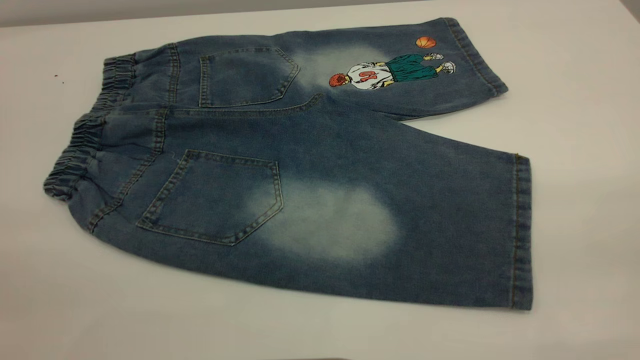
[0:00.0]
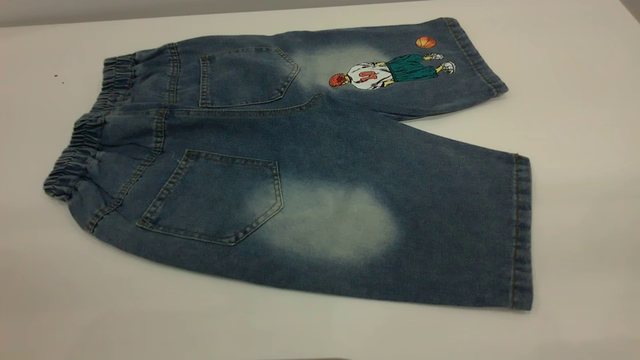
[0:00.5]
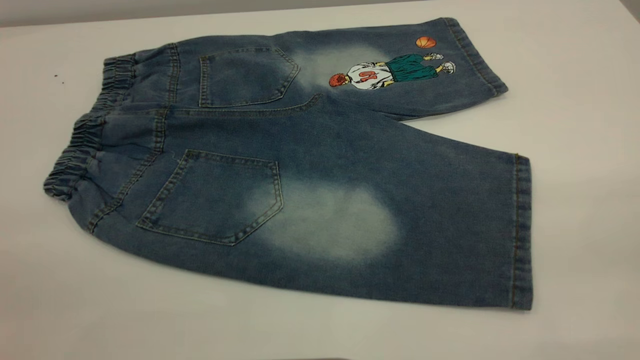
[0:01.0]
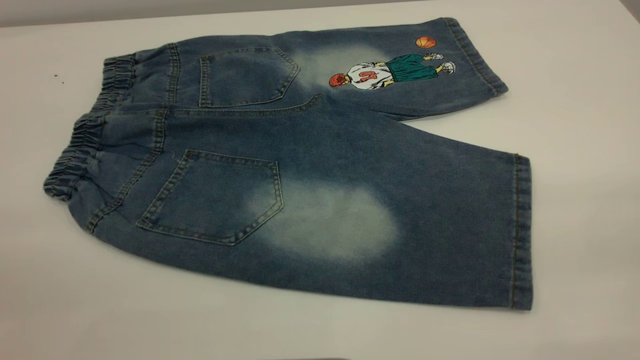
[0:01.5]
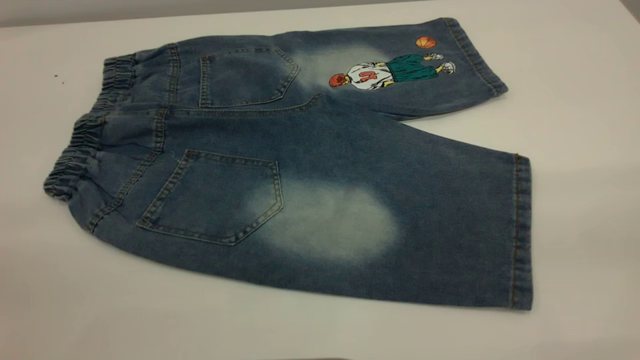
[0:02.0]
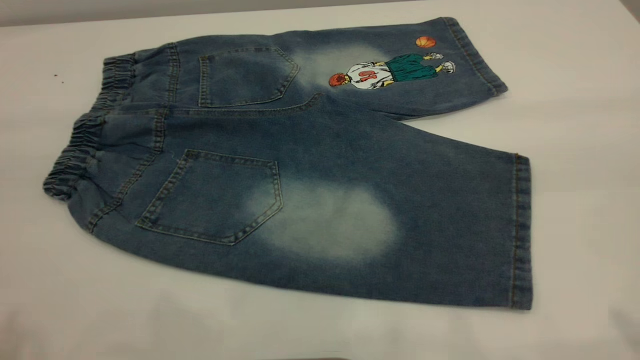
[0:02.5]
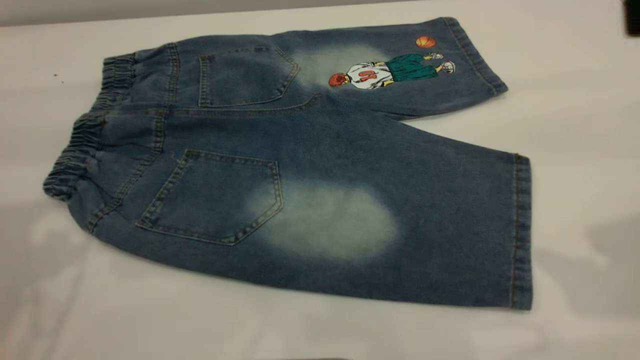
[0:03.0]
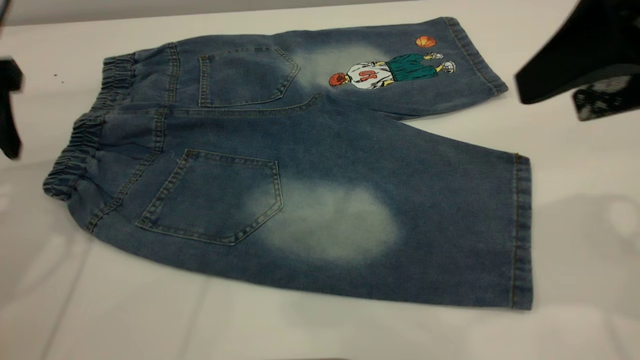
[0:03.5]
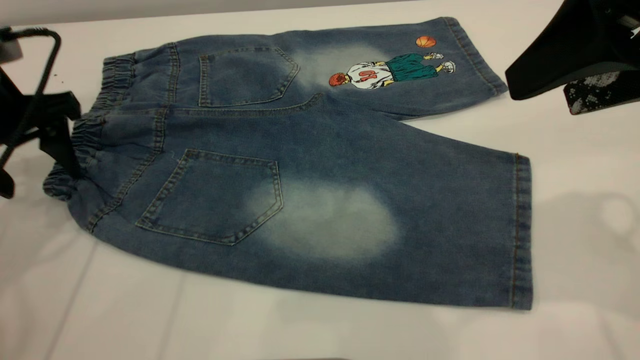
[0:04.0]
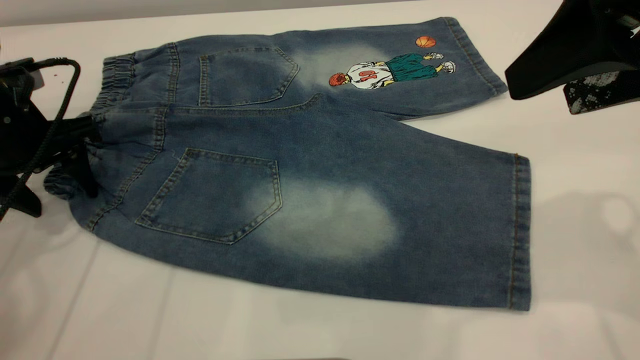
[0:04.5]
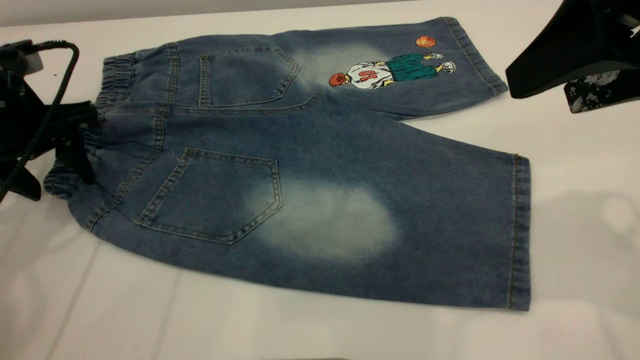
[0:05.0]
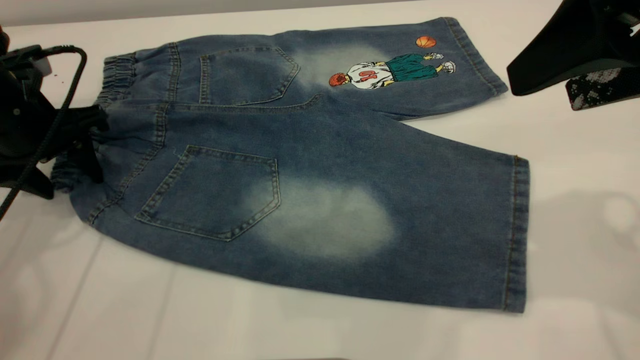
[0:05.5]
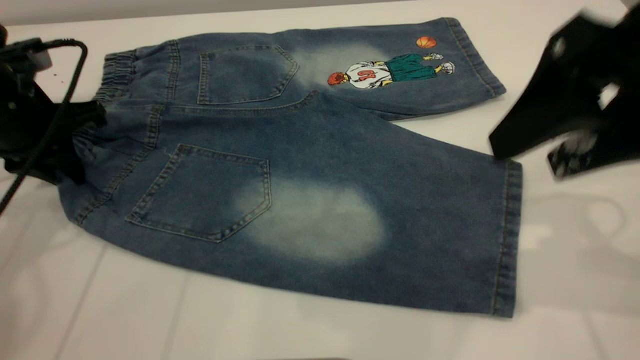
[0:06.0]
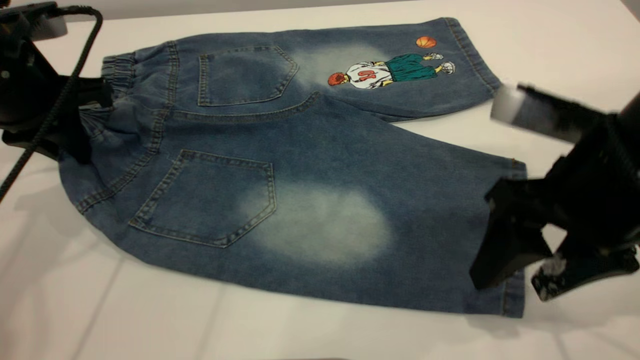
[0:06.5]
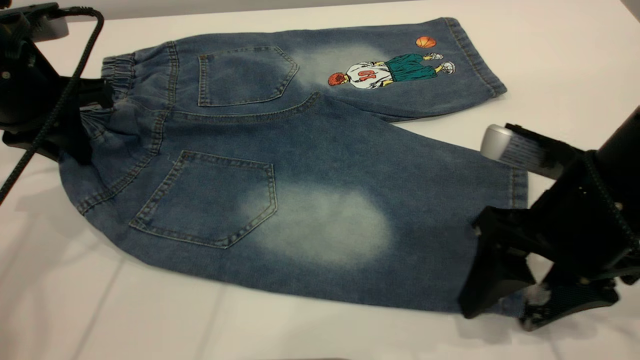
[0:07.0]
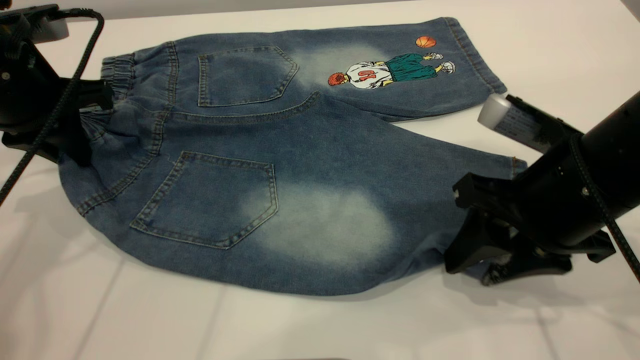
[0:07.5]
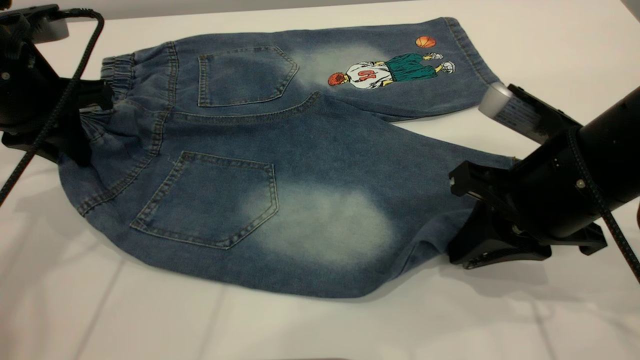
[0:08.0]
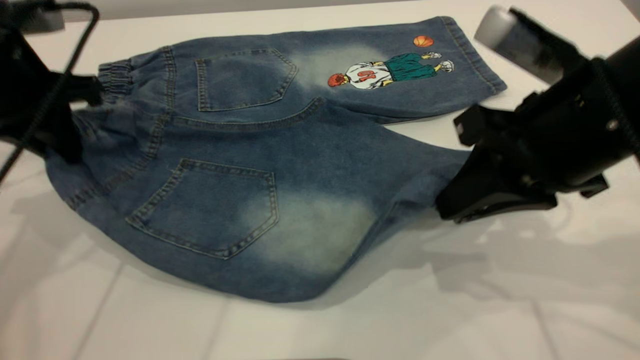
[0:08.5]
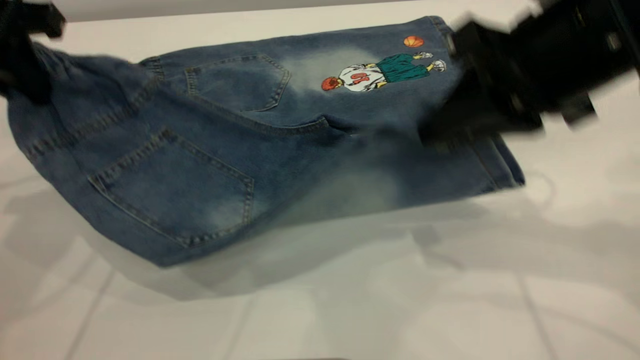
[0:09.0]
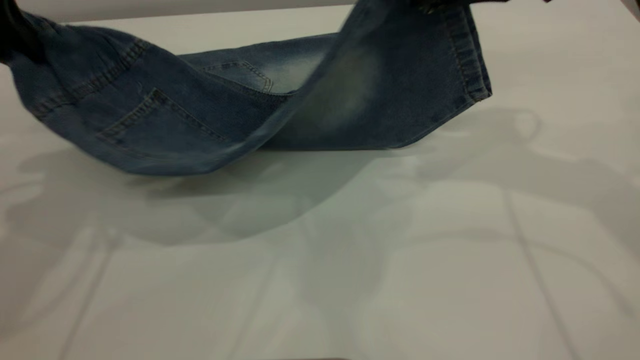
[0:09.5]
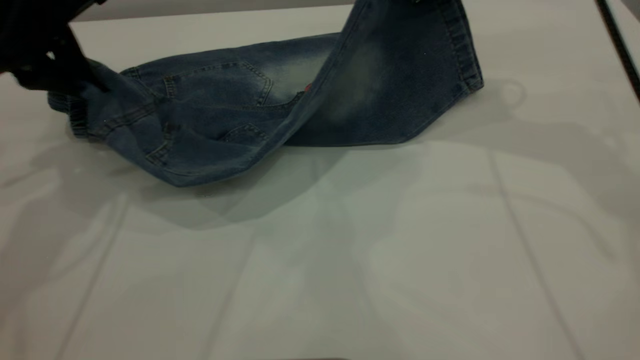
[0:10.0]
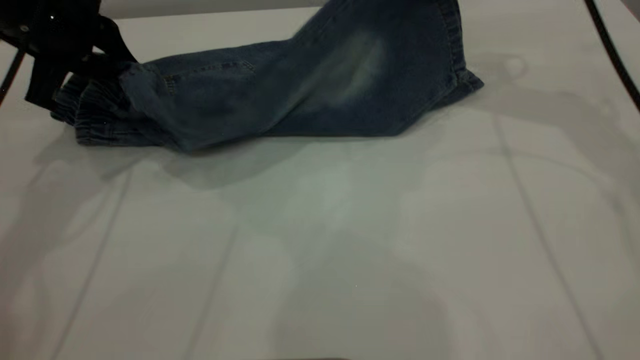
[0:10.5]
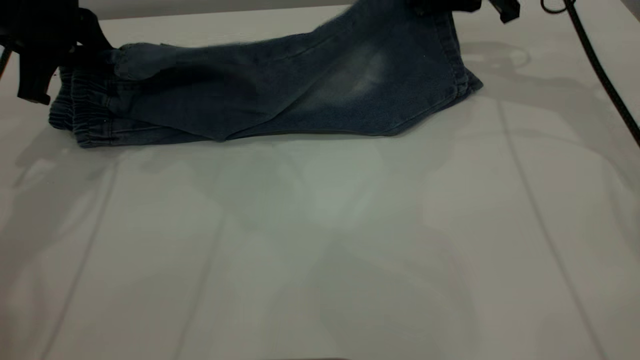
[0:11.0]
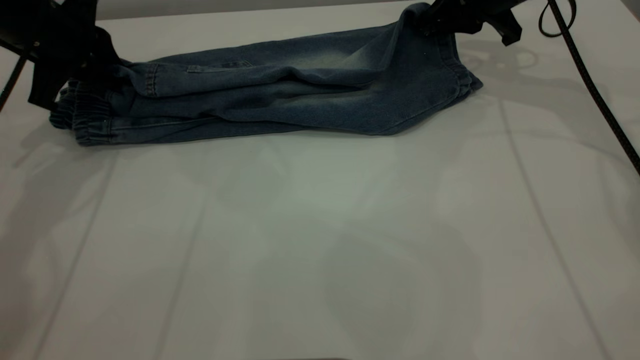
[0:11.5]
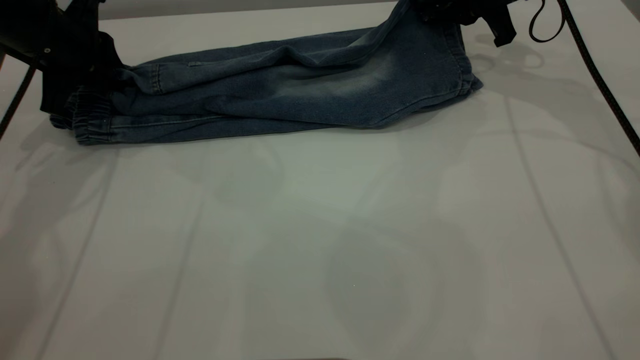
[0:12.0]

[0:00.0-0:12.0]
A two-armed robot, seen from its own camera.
0:02.0 to 0:04.0: The left gripper goes approximately 40 cm forward and downward; the right gripper shifts about 20 cm forward.
0:04.0 to 0:06.0: The left gripper closes up.
0:06.0 to 0:08.0: The right gripper goes roughly 10 cm downward, and closes up.
0:08.0 to 0:10.0: The right gripper shifts approximately 20 cm forward and upward.
0:10.0 to 0:12.0: The grippers both shift forward and downward by some 10 cm.

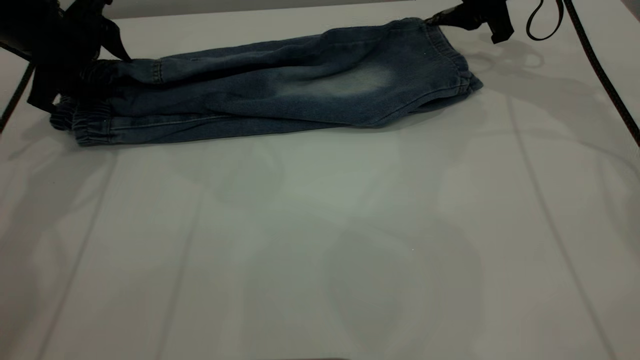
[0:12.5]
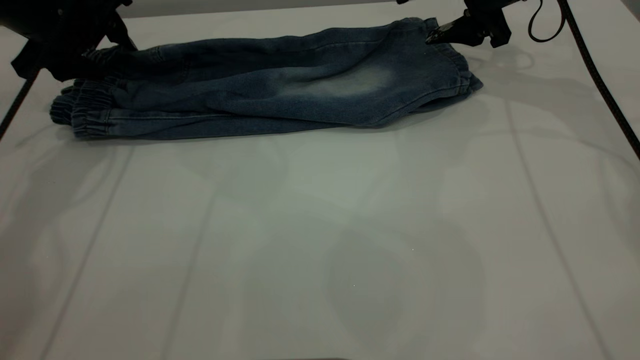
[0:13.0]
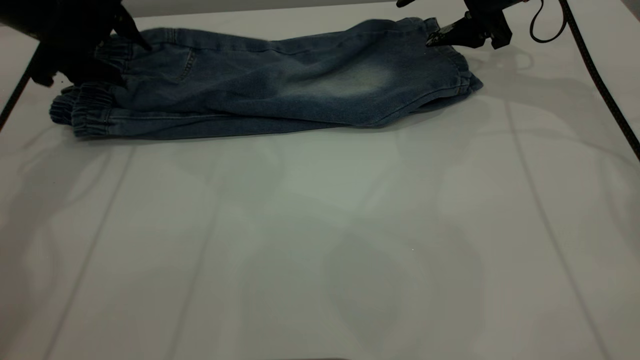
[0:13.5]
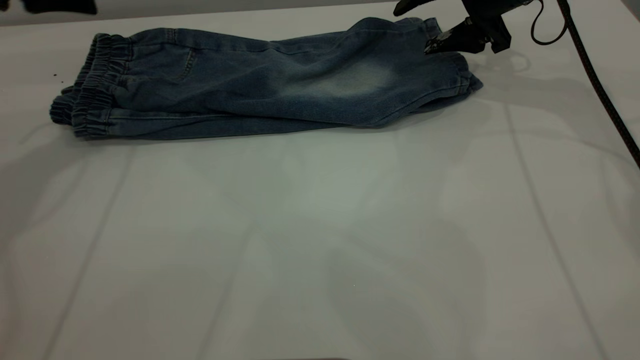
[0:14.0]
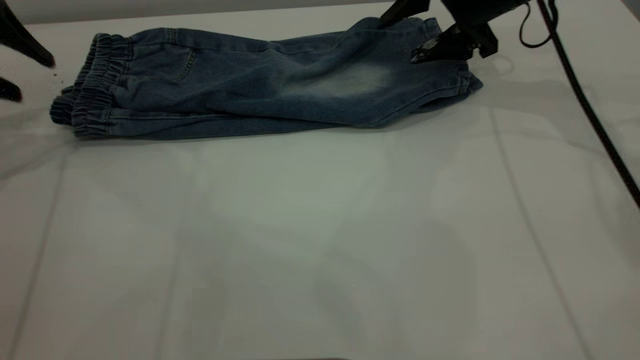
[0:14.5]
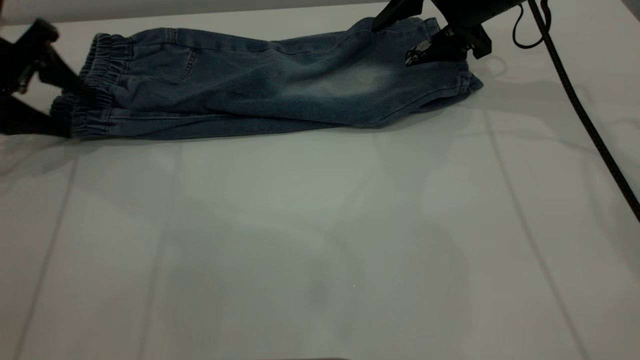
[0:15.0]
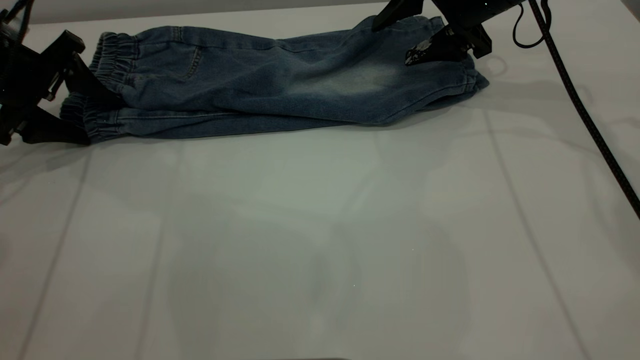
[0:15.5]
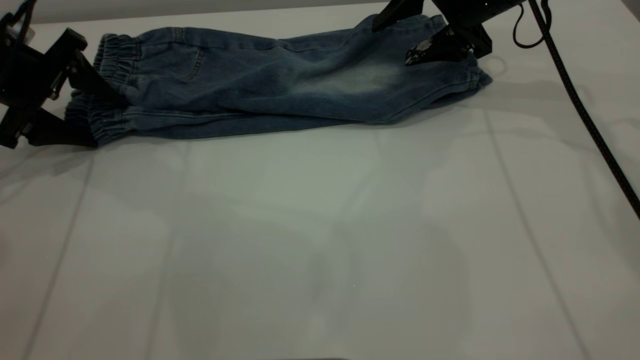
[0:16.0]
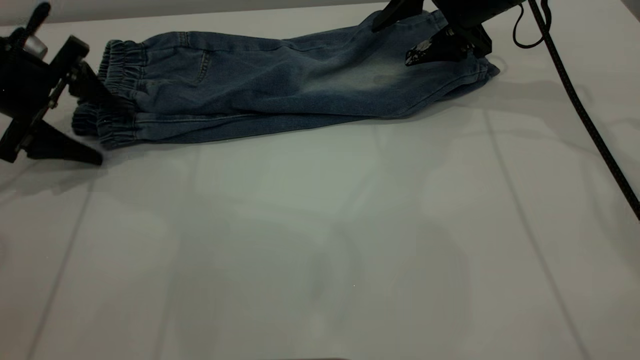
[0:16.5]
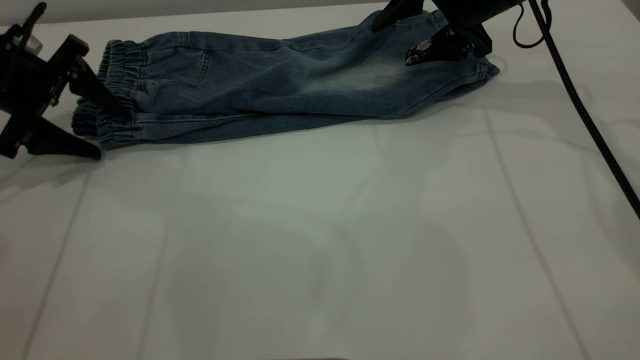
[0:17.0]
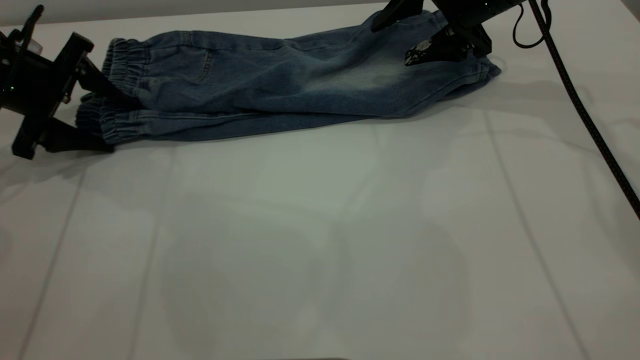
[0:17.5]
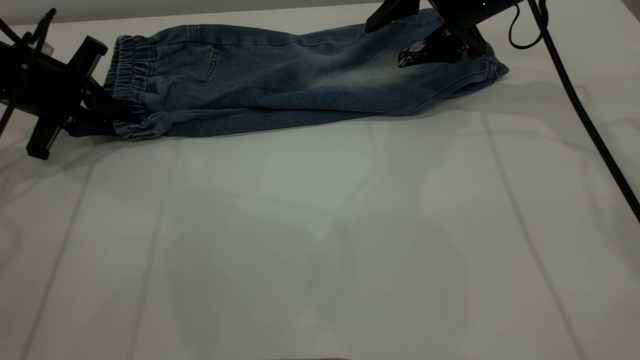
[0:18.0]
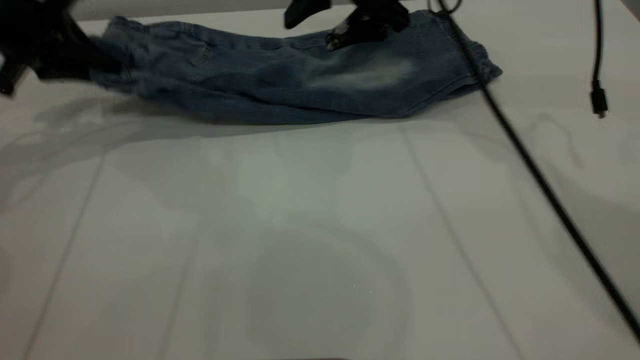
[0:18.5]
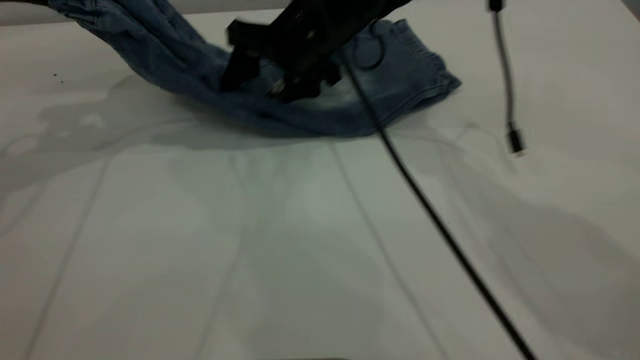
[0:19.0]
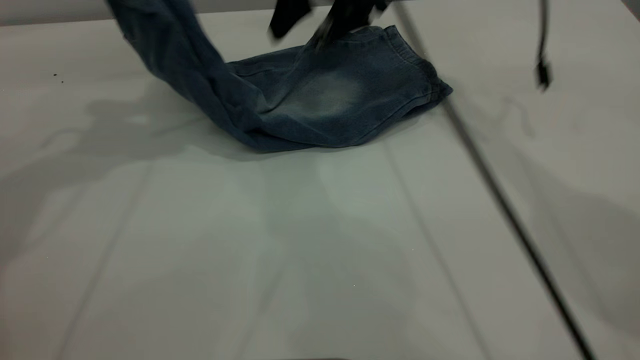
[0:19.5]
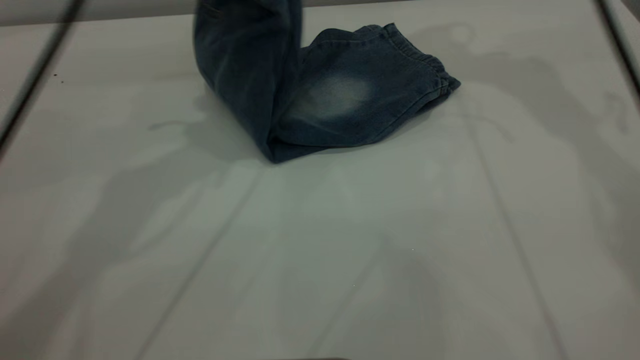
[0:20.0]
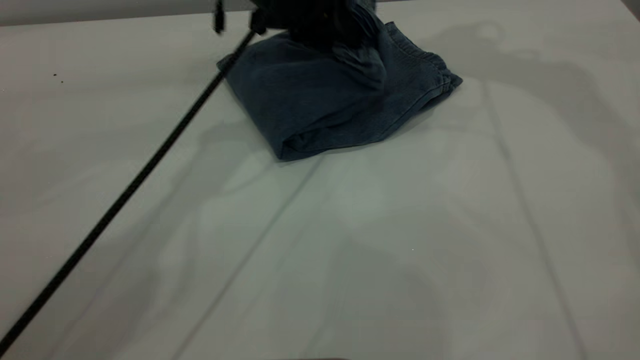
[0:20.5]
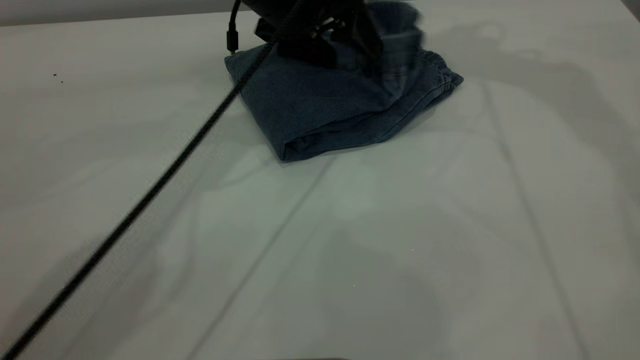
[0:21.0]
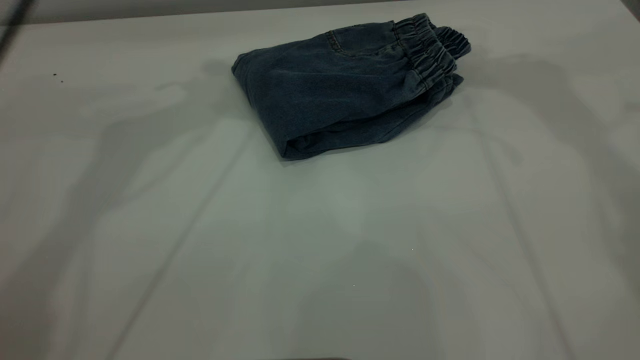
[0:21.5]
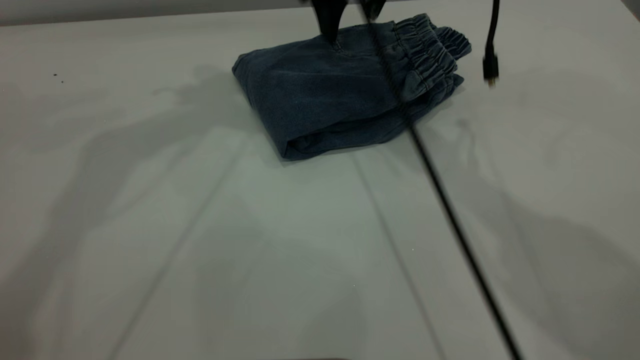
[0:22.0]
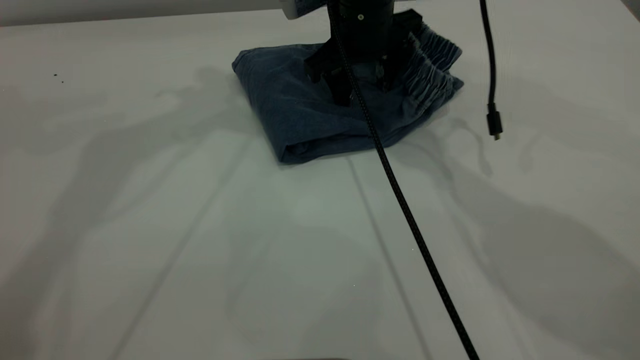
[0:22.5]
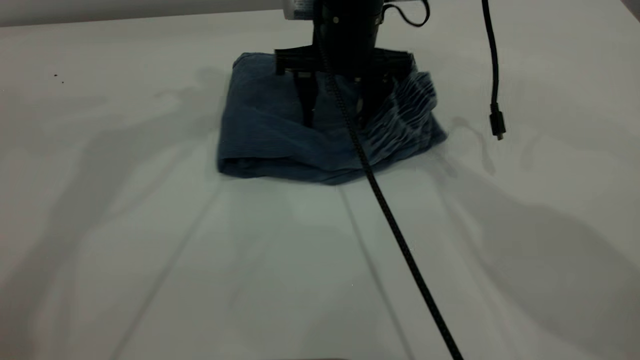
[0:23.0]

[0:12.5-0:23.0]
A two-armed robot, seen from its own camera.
Step, 0:14.5 to 0:21.5: Fold the pants from left to right.
0:12.5 to 0:14.5: The left gripper moves to the left, about 10 cm.
0:14.5 to 0:16.5: The left gripper shifts roughly 5 cm downward.
0:16.5 to 0:19.0: The left gripper moves upward, approximately 15 cm, and closes up, while the right gripper travels to the left by approximately 20 cm.
0:19.0 to 0:21.0: The right gripper is displaced upward and to the right by approximately 30 cm, while the left gripper moves to the right, roughly 25 cm, and opens its fingers.
0:21.0 to 0:23.0: The right gripper moves downward and to the left, some 30 cm. Meanwhile the left gripper shifts roughly 20 cm upward and to the left.
